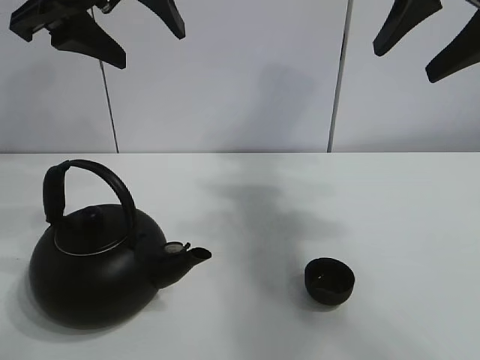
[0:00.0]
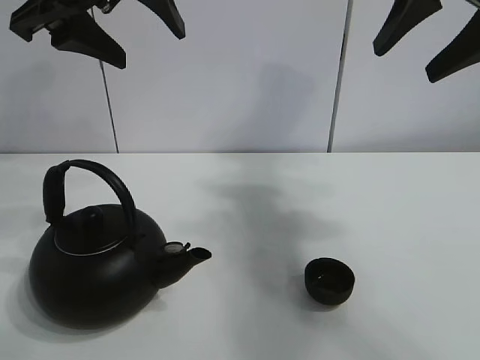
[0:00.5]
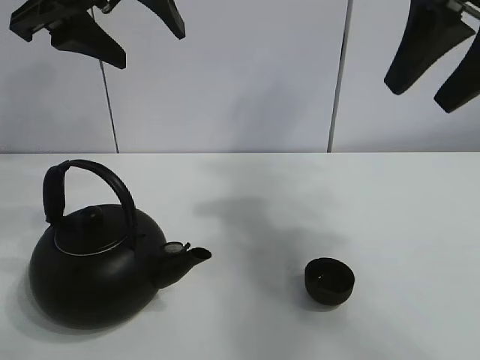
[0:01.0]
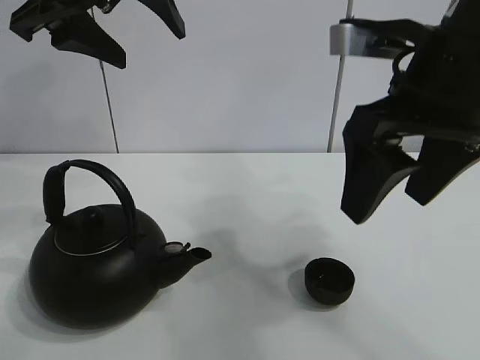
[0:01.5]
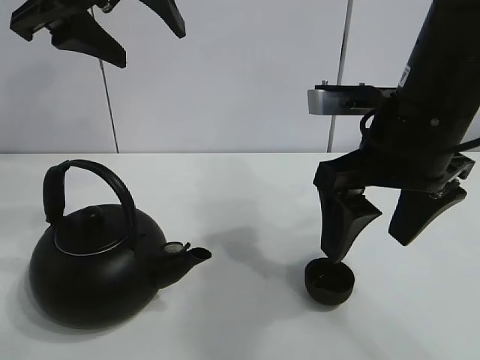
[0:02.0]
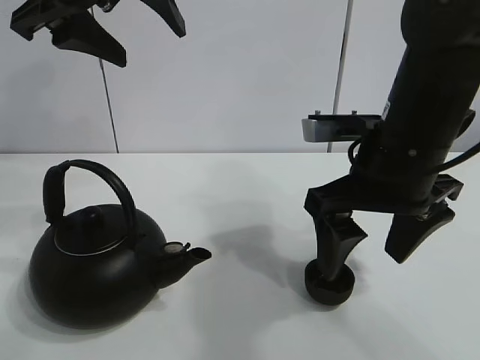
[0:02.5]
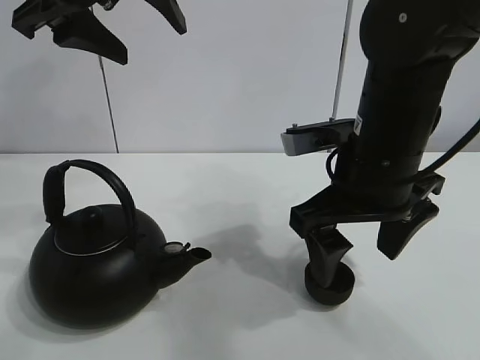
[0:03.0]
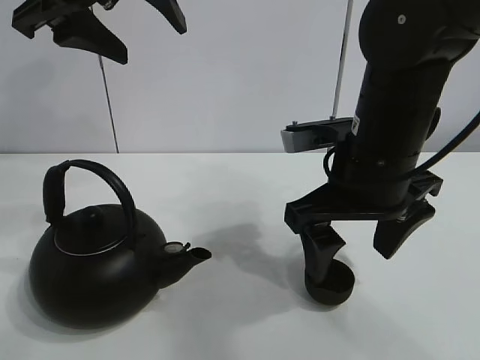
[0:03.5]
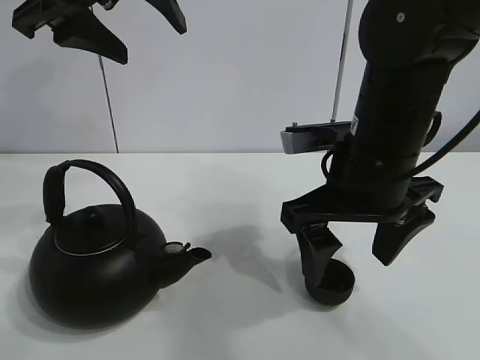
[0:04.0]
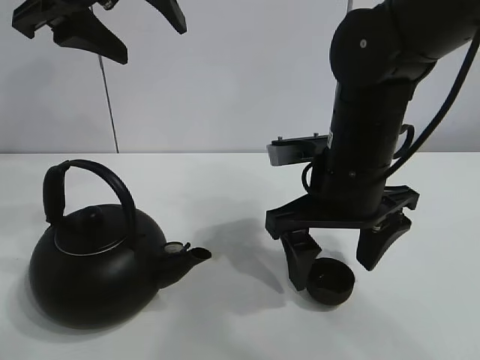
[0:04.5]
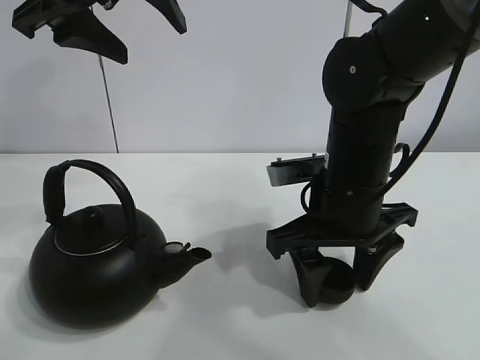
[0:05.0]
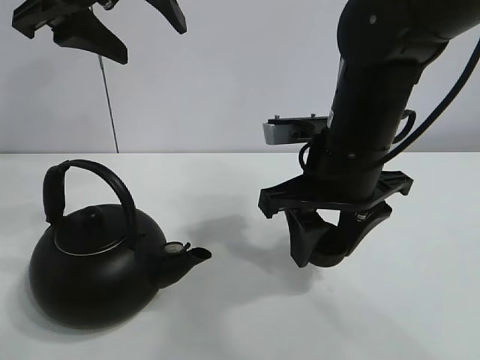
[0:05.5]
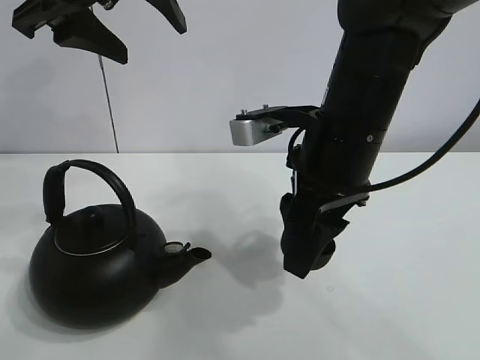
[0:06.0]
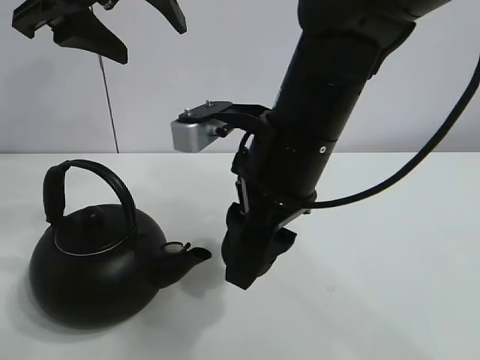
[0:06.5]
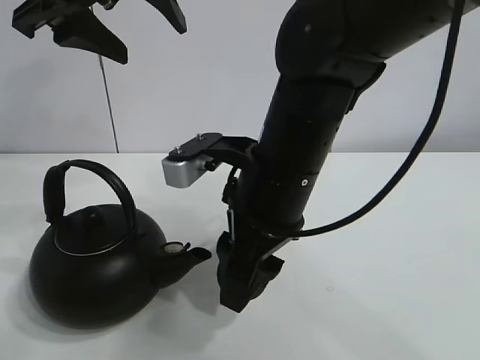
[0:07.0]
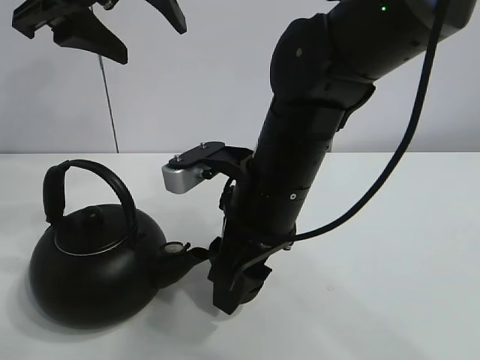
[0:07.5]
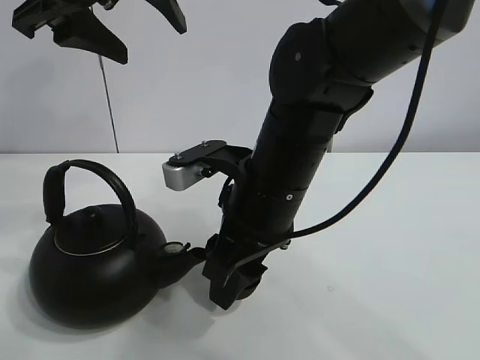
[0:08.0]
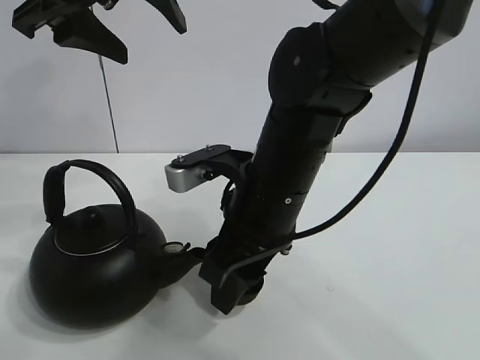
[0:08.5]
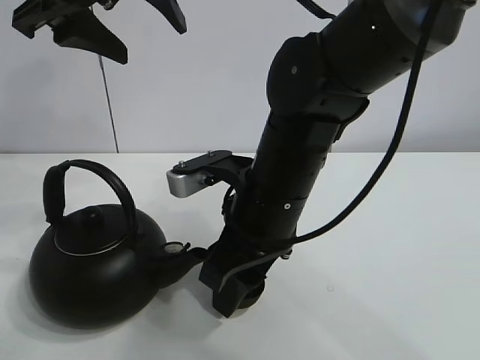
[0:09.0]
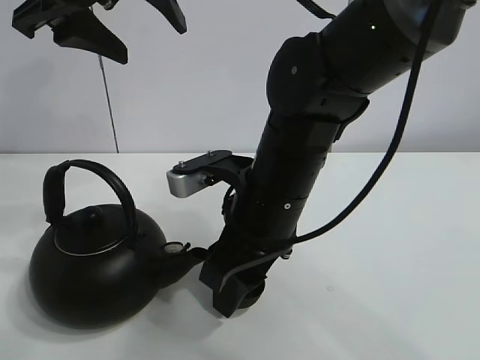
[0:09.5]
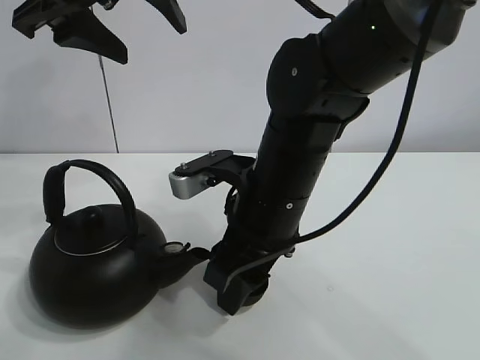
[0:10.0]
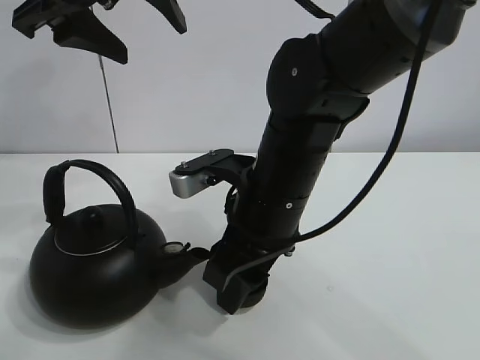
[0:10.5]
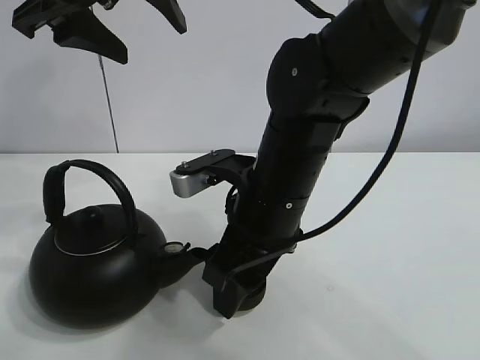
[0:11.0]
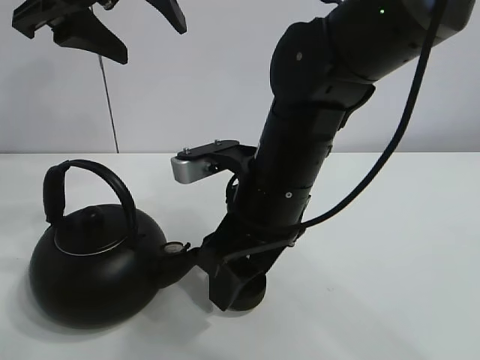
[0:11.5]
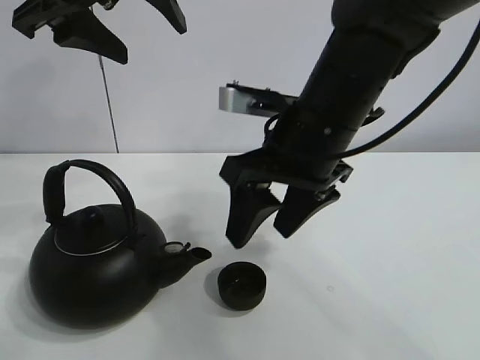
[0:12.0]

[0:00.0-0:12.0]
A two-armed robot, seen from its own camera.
Task of the whole recording: pour tea into the teacup.
Step, 0:00.0 to 0:05.0: Pick up the teacup with the right gripper.
Step, 0:05.5 to 0:11.0: Place the teacup in the center of view with the right gripper.
0:02.0 to 0:04.0: The right gripper moves about 5 cm.
0:04.0 to 0:06.0: The right gripper closes its fingers.
0:06.0 to 0:08.0: The right gripper moves to the left, some 5 cm.
0:08.0 to 0:10.0: The grippers stay close to where they were, moving slightly.
0:10.0 to 0:12.0: The right gripper moves upward, about 5 cm, and opens its fingers.

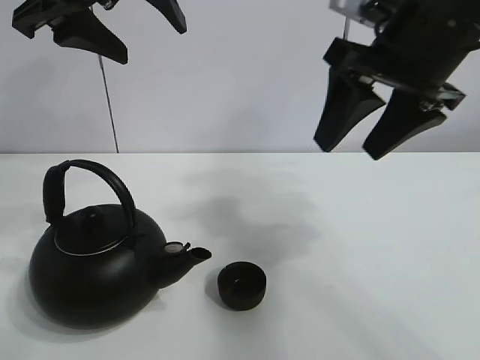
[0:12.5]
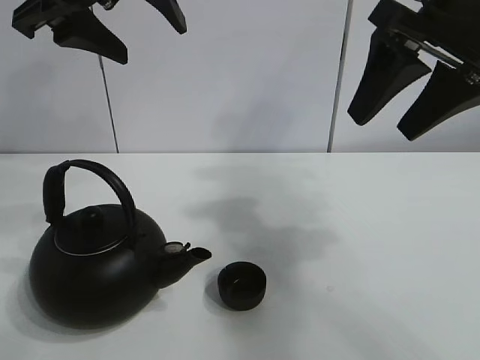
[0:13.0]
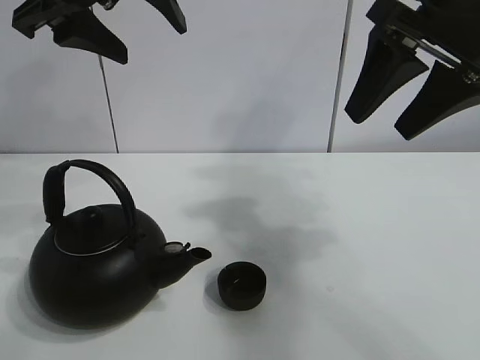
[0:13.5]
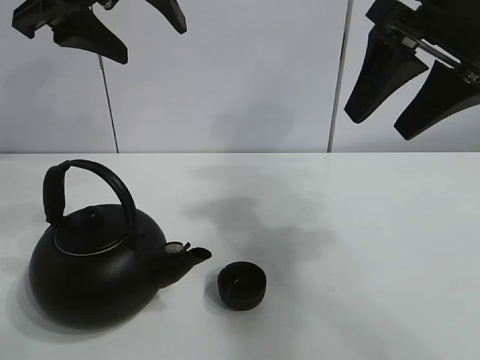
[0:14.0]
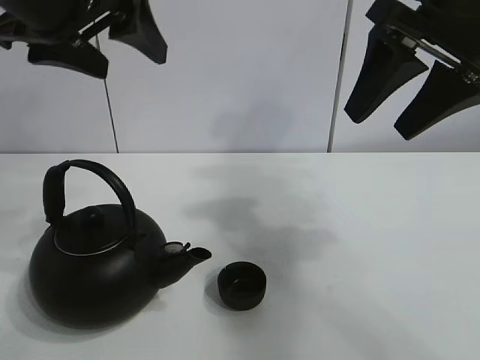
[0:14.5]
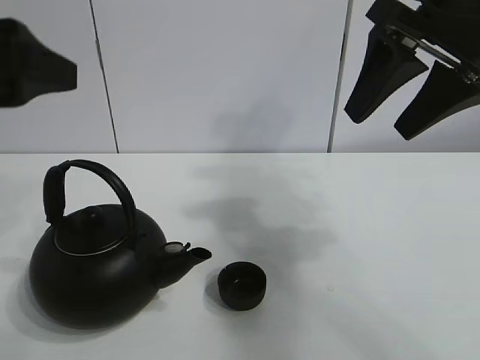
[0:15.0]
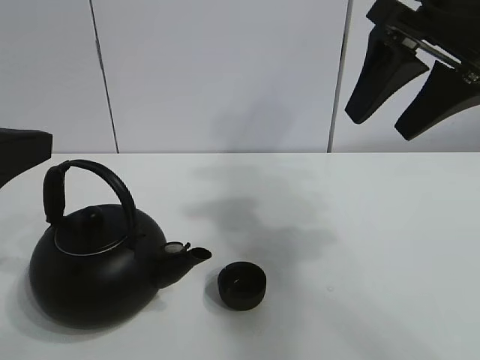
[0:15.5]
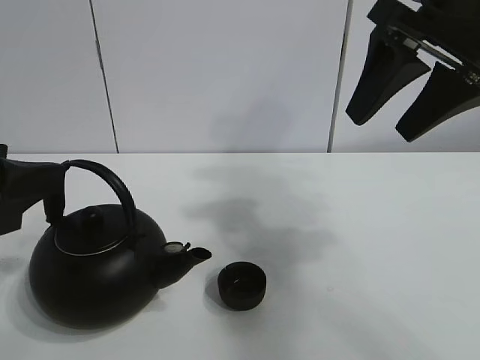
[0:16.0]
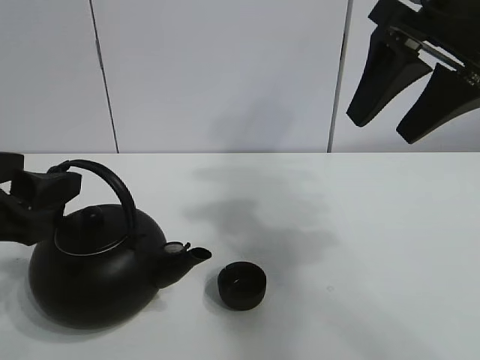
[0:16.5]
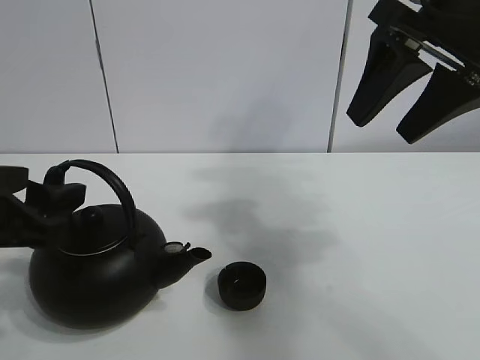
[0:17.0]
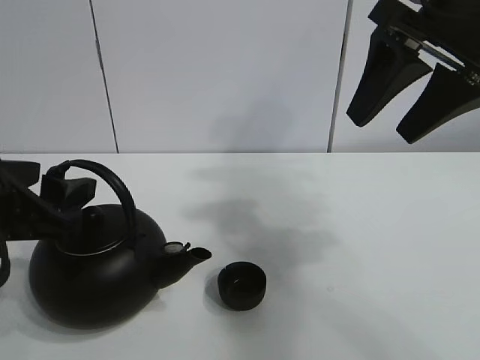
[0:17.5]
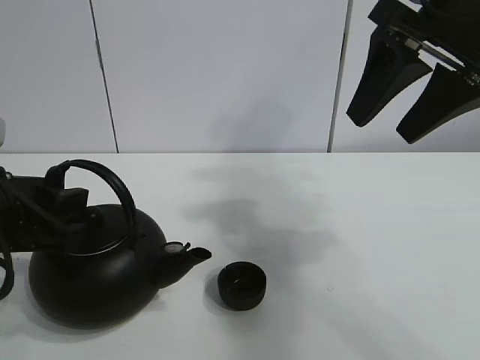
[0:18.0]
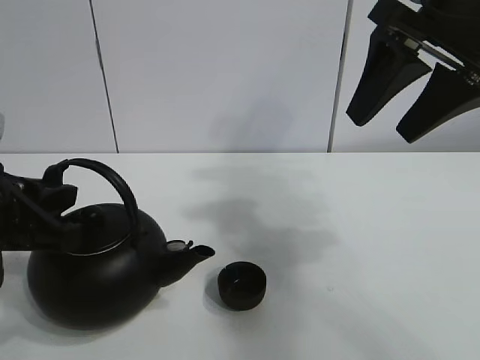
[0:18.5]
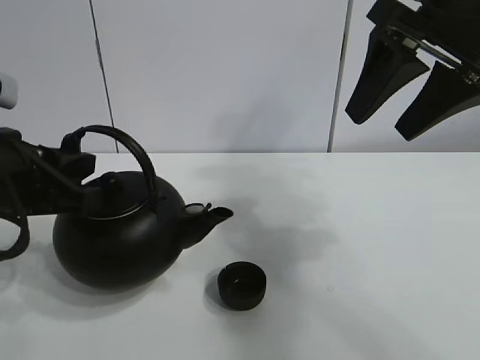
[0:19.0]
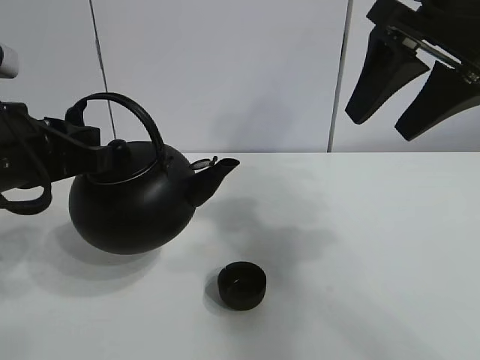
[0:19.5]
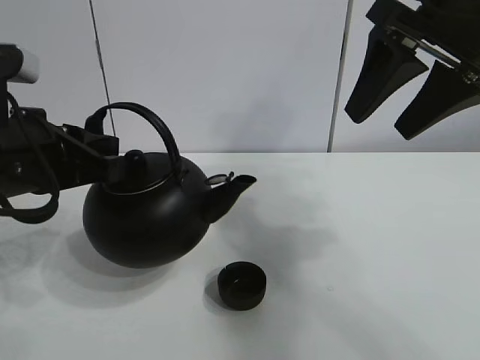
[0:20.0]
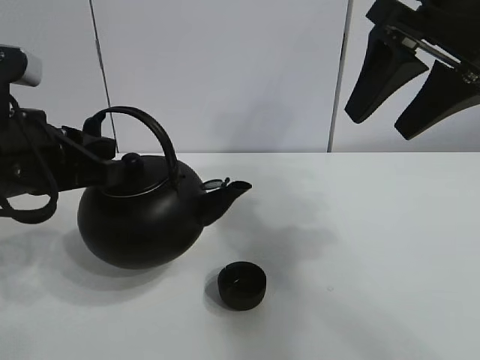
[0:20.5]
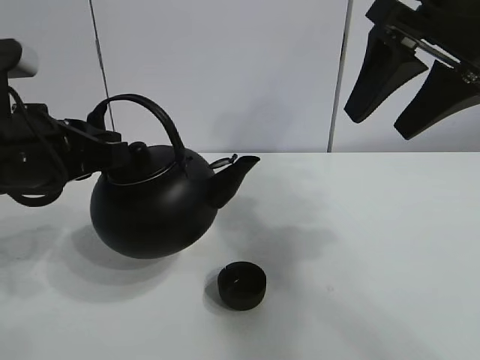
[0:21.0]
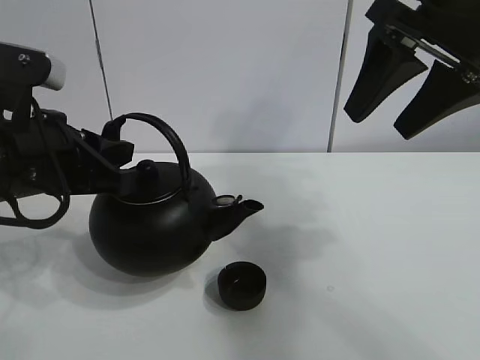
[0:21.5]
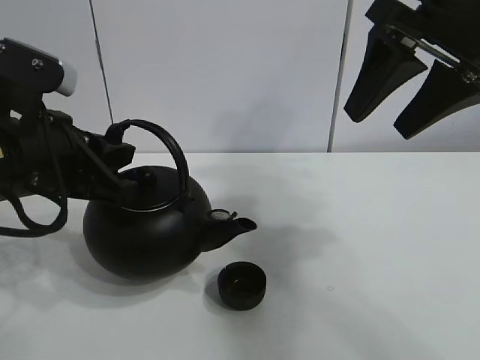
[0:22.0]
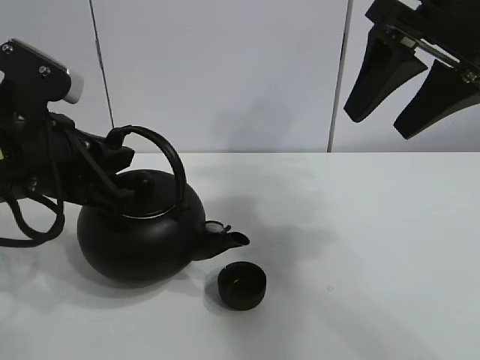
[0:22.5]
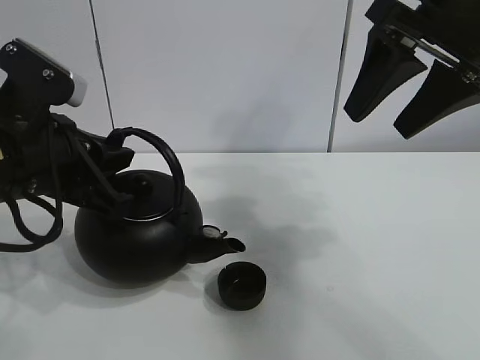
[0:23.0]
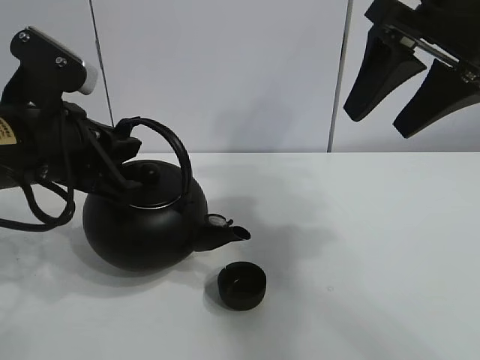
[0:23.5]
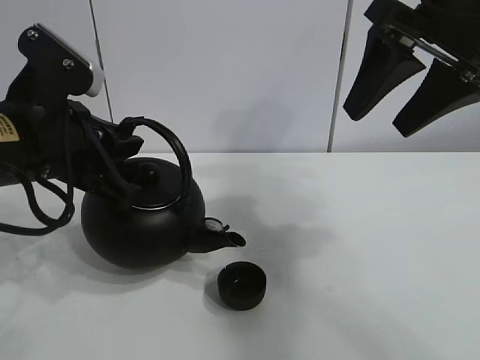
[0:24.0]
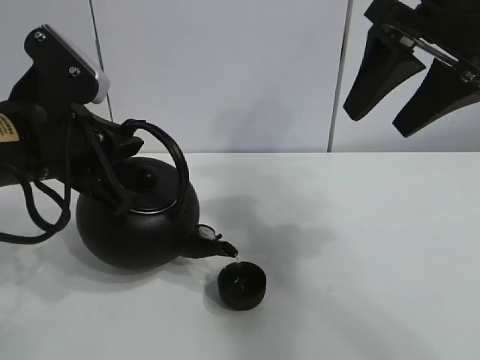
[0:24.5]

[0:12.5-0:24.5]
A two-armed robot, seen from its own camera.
Task of the whole recording: pour tea into the teacup.
Step, 0:12.5 to 0:18.0: Pick up the teapot with the left gripper.
0:12.5 to 0:14.5: The grippers stay close to where they were, moving slightly.
0:14.5 to 0:16.5: The left gripper moves downward, backward and to the left, about 20 cm.
0:16.5 to 0:18.5: The left gripper closes.
0:18.5 to 0:20.5: The left gripper shifts by some 5 cm.
0:20.5 to 0:22.5: The grippers move only a little.
0:22.5 to 0:24.5: The grippers move only a little.

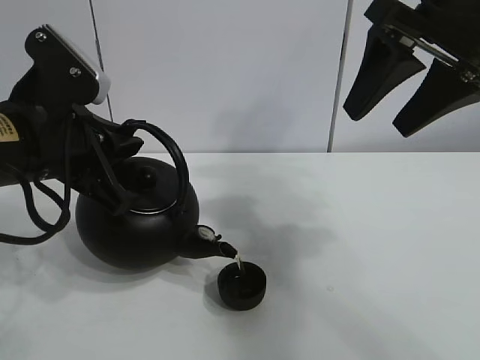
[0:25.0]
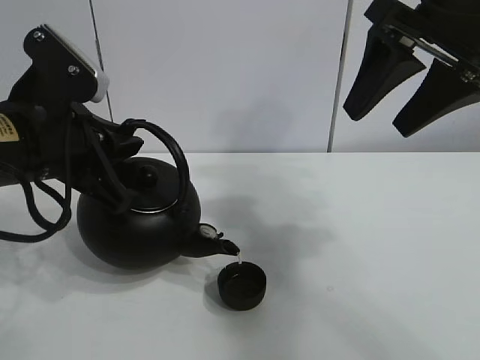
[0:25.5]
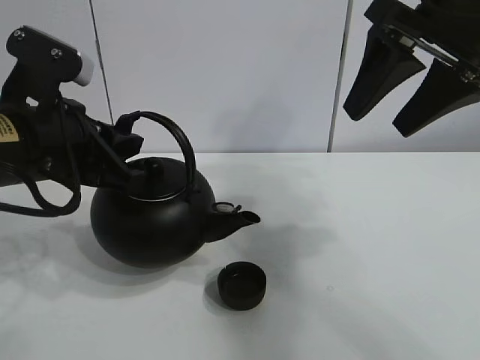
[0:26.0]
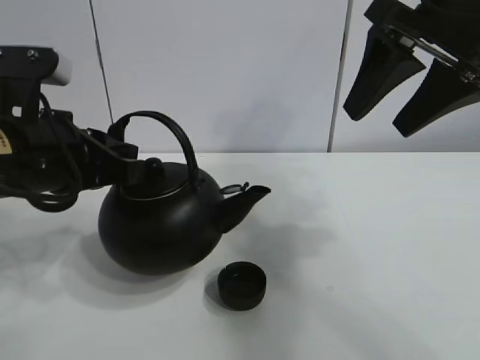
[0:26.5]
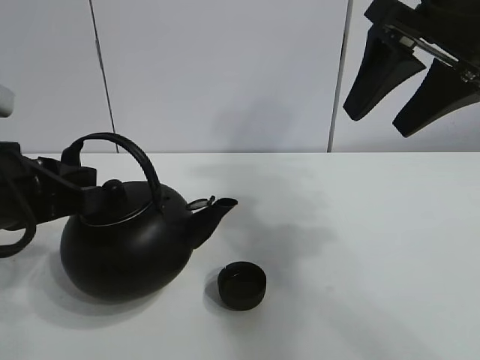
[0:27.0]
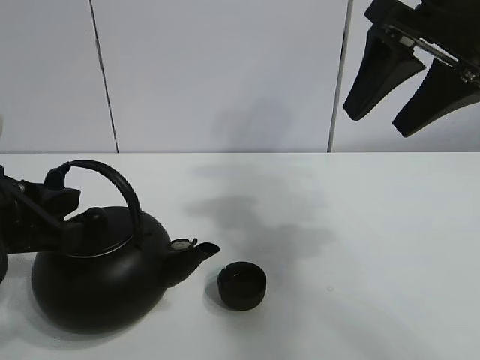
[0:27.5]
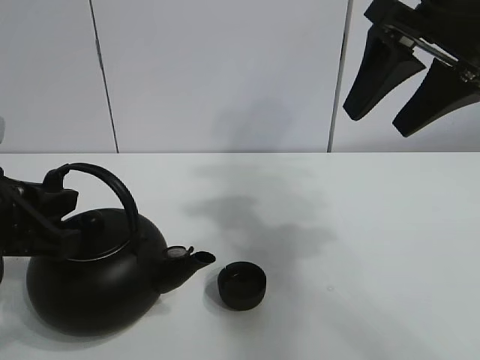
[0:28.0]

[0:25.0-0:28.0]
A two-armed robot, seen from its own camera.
Task of the whole recording: pour tea into the teacup.
0:26.5 to 0:28.0: The left gripper goes roughly 5 cm backward.
